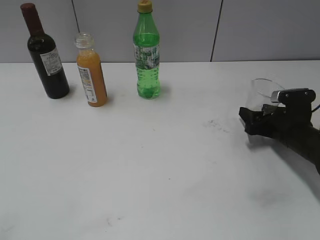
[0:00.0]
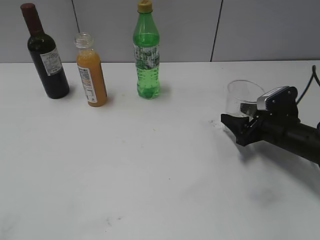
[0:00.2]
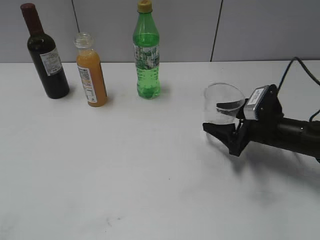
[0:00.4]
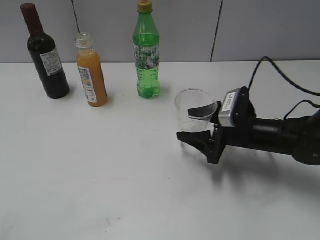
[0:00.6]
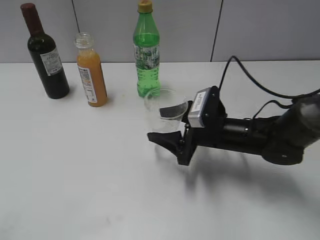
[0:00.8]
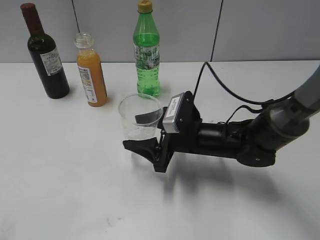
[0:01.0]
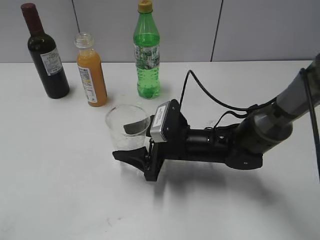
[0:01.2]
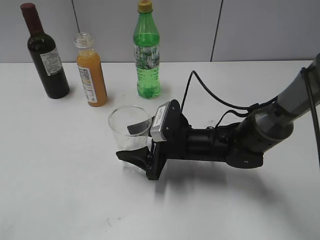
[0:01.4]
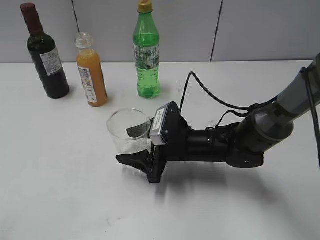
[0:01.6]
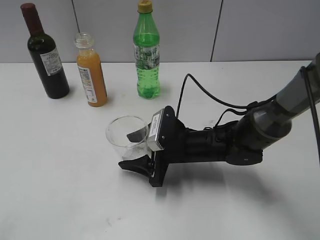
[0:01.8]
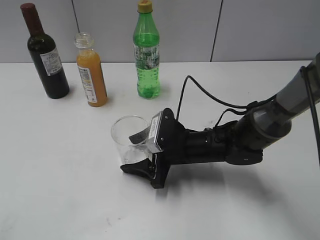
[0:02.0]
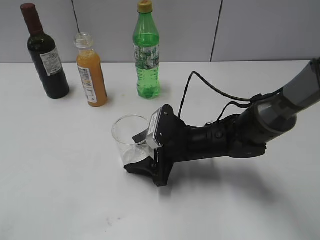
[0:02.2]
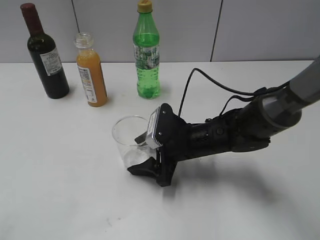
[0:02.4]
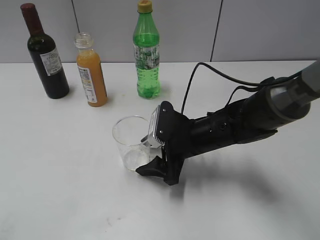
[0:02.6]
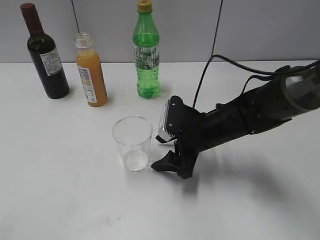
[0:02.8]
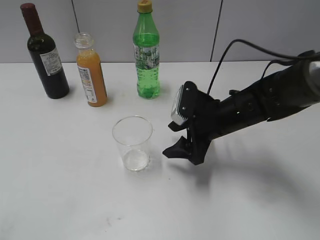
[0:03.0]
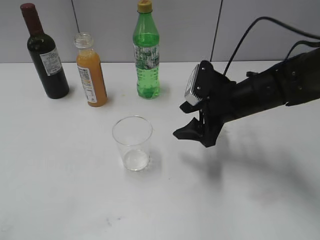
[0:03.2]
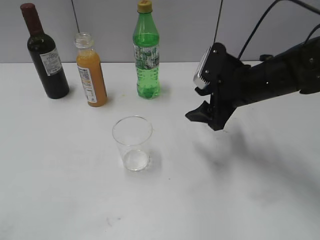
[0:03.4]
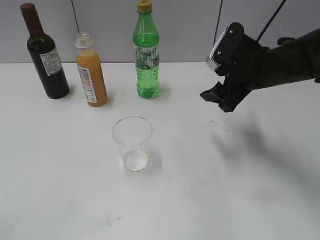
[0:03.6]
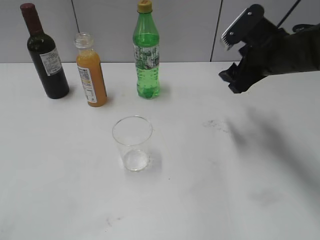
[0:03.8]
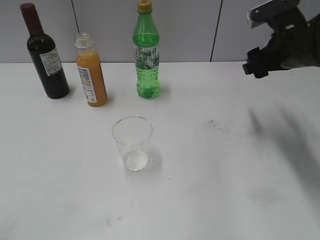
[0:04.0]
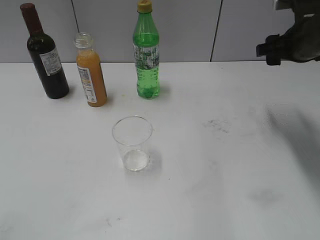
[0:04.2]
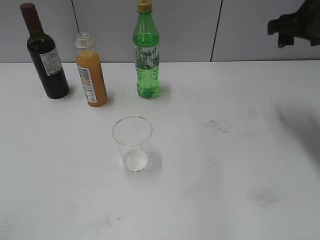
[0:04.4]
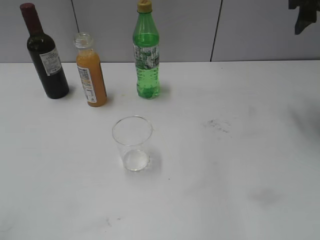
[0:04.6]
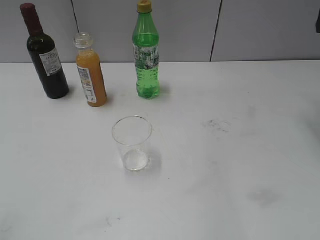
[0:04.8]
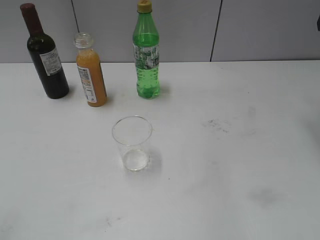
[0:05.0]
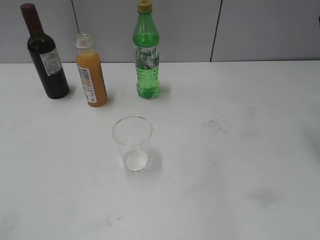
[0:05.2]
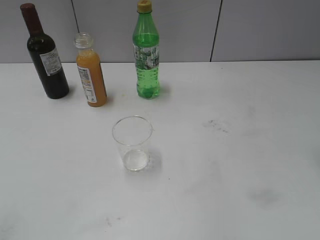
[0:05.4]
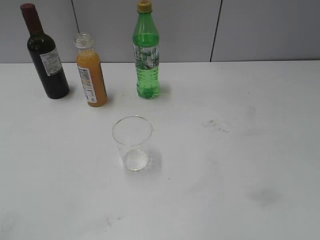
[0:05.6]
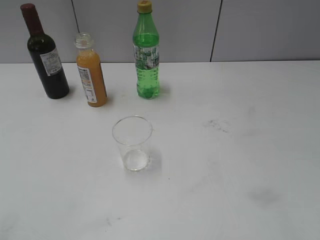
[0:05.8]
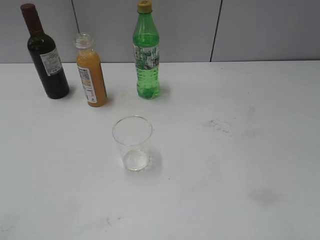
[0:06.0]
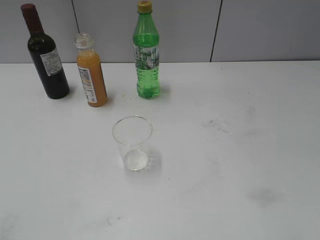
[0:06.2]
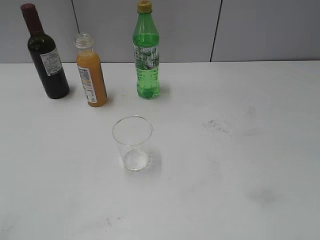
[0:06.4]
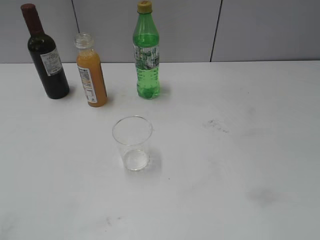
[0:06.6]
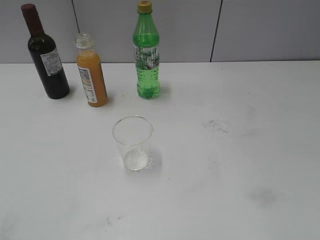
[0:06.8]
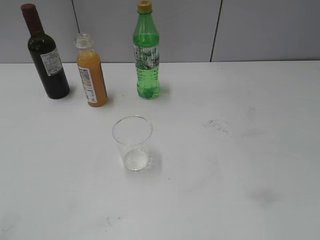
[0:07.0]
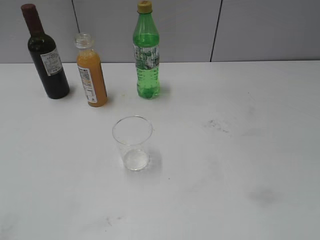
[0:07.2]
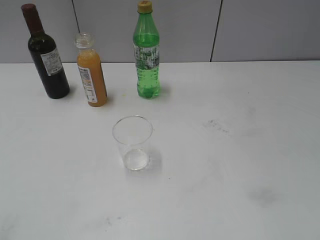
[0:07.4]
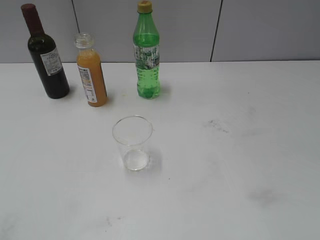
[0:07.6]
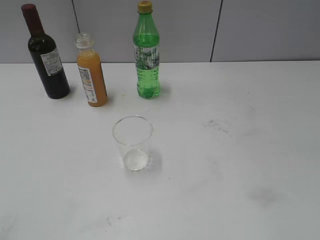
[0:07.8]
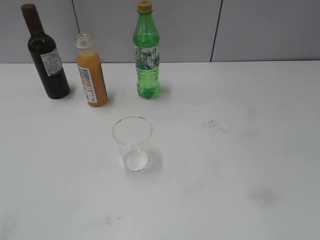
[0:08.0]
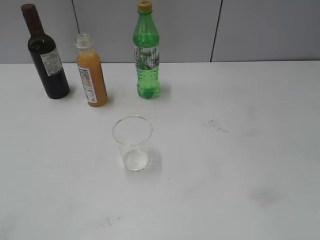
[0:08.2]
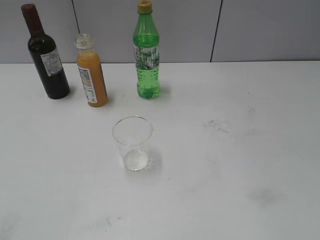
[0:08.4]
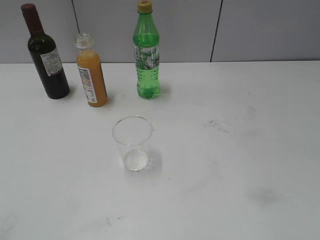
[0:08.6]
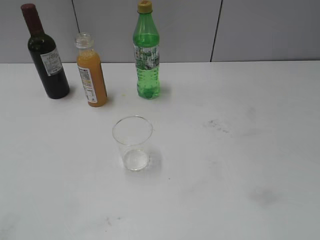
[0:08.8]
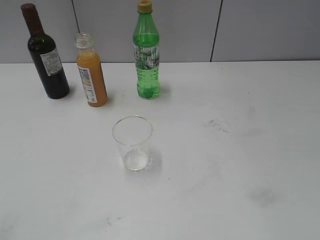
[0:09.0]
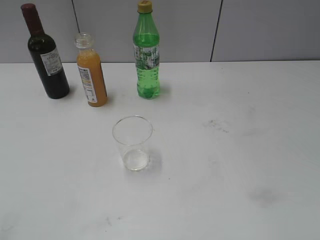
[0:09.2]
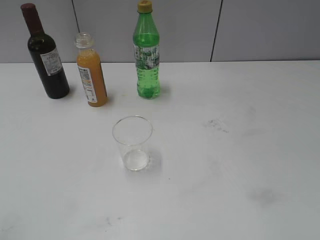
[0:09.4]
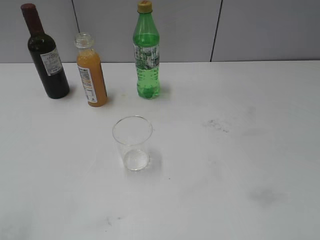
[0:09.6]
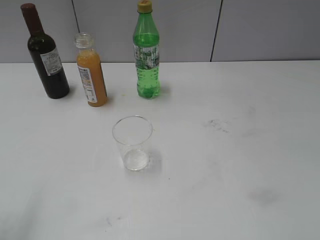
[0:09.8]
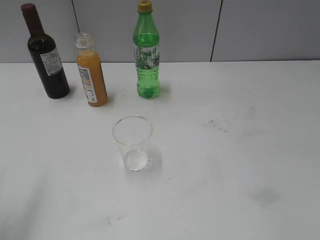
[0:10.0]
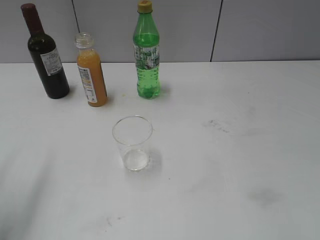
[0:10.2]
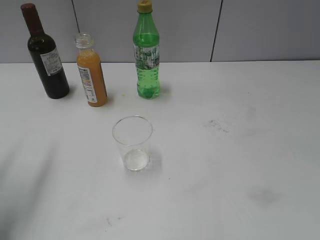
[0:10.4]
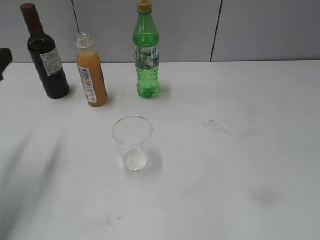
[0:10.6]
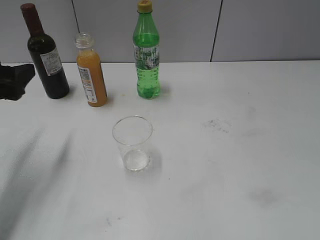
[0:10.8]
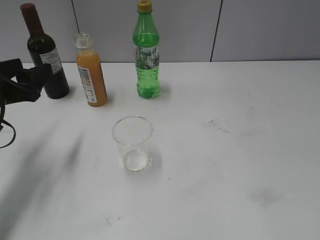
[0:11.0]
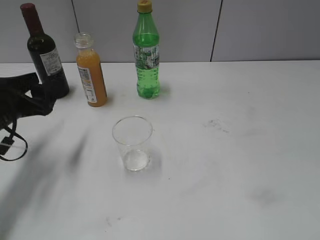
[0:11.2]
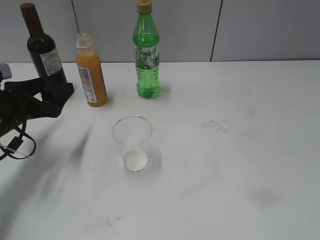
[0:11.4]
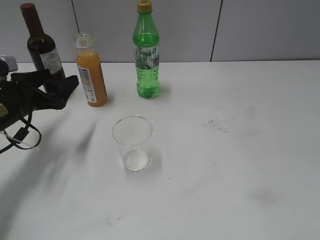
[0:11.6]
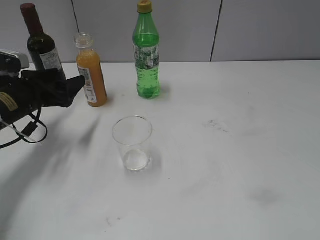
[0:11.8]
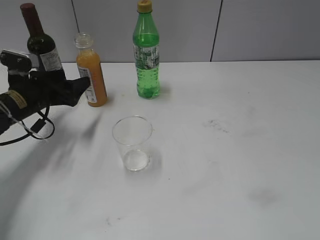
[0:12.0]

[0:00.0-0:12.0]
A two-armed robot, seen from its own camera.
Step, 0:00.0 to 0:02.8: Place the transparent cup on the table with right gripper.
0:00.0 to 0:01.6: The right gripper heads to the left, covering approximately 20 cm.
0:01.6 to 0:03.0: The right gripper travels to the right by about 5 cm.
0:03.0 to 0:04.4: The right gripper goes roughly 25 cm upward, to the right and forward, and closes up.
0:04.4 to 0:06.0: The right gripper shifts roughly 25 cm backward.
0:07.6 to 0:09.0: Neither gripper changes place.
0:09.0 to 0:10.4: The left gripper moves forward, roughly 20 cm.
0:10.4 to 0:12.0: The left gripper travels downward and forward by roughly 20 cm, and opens.

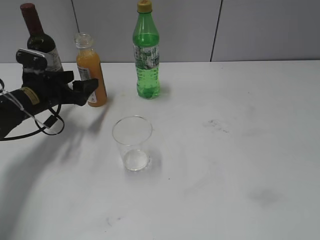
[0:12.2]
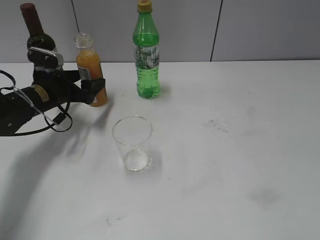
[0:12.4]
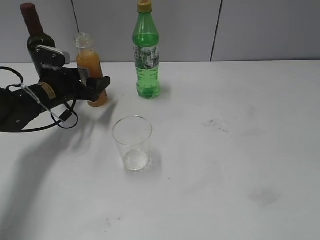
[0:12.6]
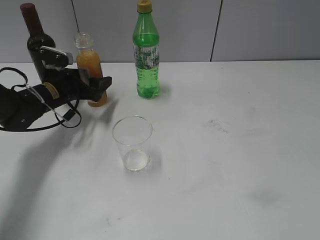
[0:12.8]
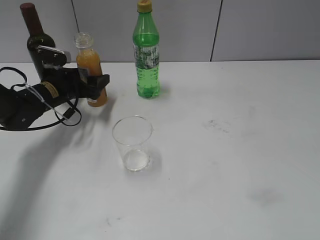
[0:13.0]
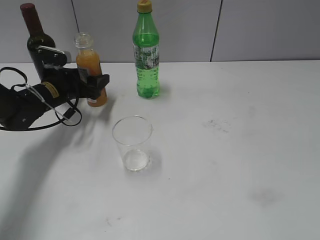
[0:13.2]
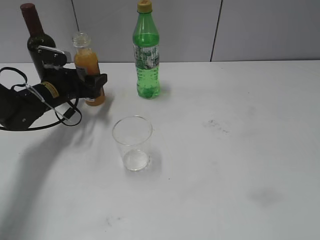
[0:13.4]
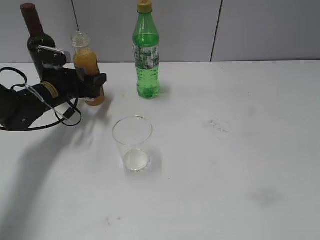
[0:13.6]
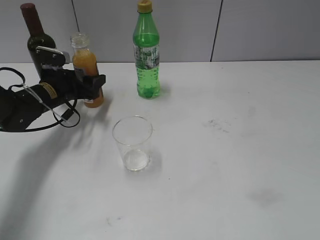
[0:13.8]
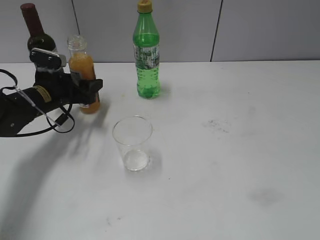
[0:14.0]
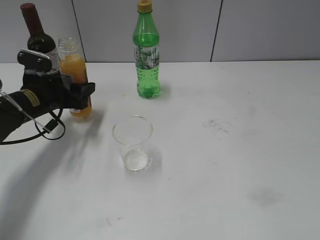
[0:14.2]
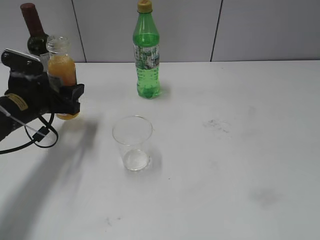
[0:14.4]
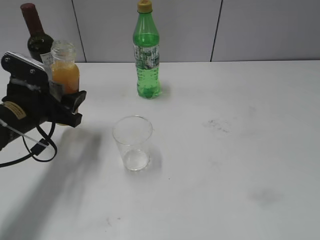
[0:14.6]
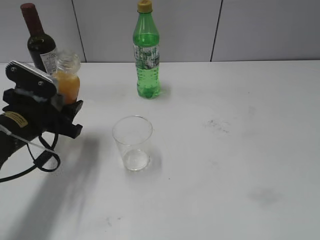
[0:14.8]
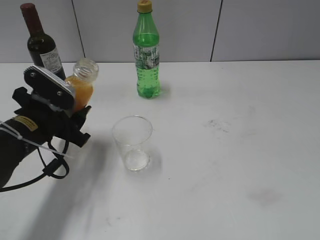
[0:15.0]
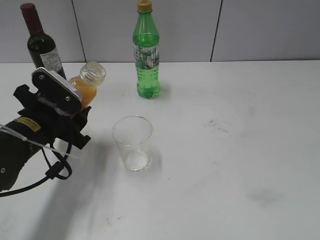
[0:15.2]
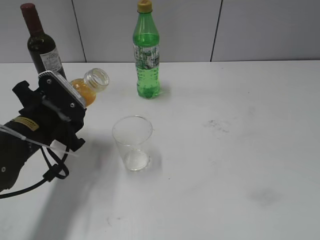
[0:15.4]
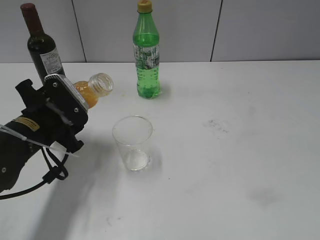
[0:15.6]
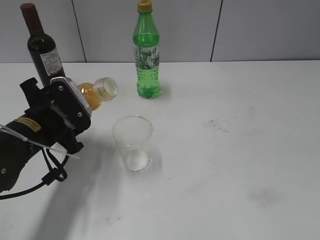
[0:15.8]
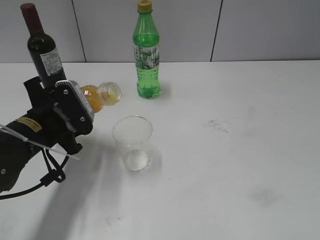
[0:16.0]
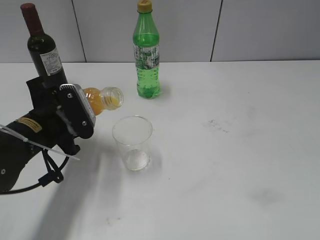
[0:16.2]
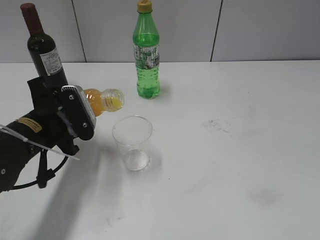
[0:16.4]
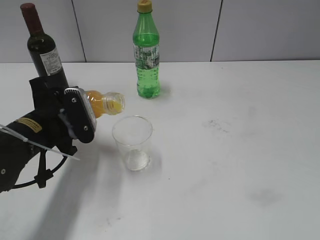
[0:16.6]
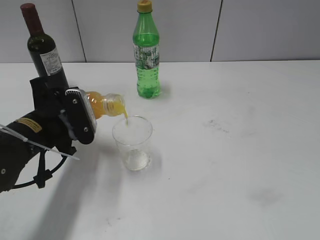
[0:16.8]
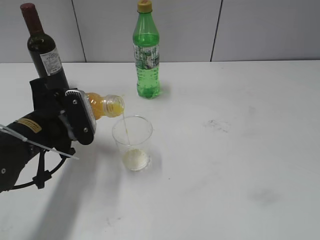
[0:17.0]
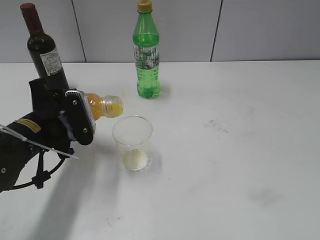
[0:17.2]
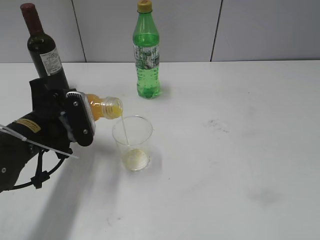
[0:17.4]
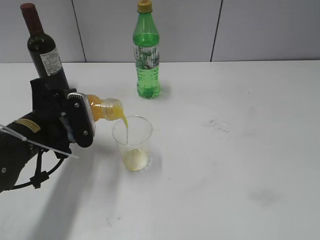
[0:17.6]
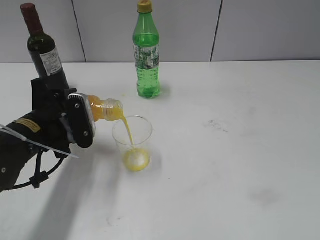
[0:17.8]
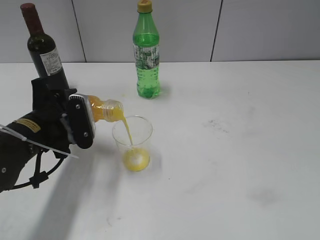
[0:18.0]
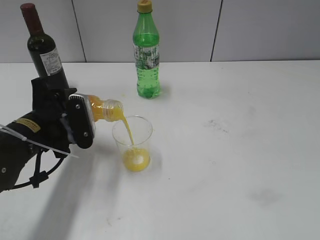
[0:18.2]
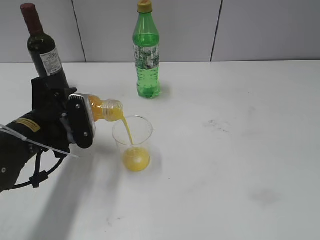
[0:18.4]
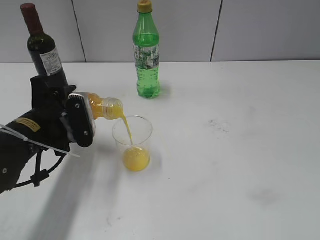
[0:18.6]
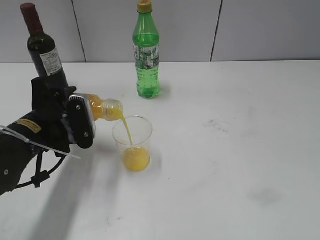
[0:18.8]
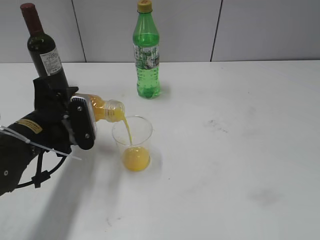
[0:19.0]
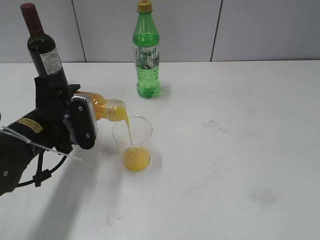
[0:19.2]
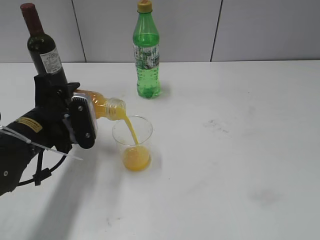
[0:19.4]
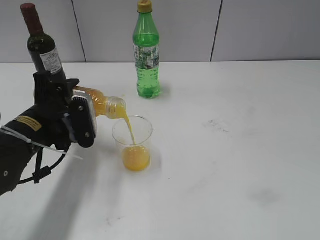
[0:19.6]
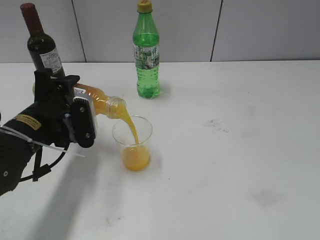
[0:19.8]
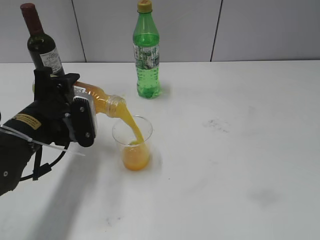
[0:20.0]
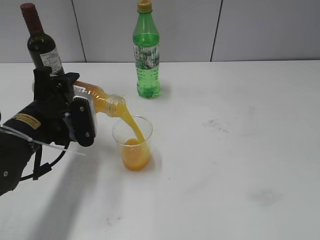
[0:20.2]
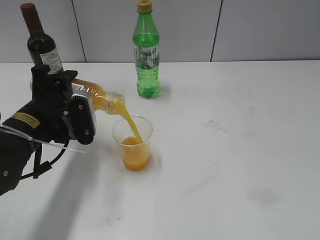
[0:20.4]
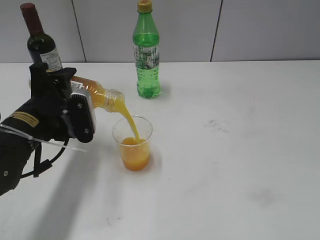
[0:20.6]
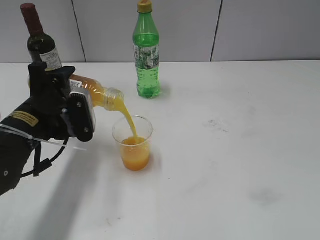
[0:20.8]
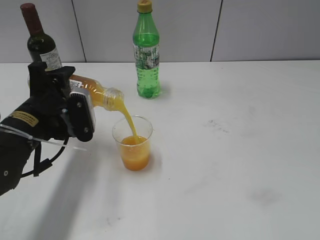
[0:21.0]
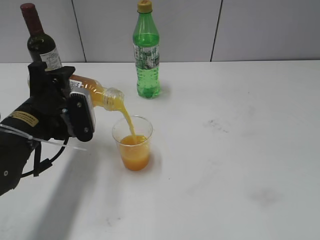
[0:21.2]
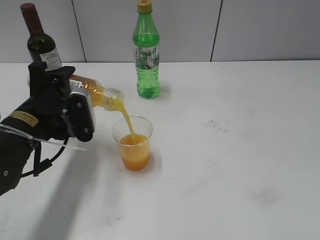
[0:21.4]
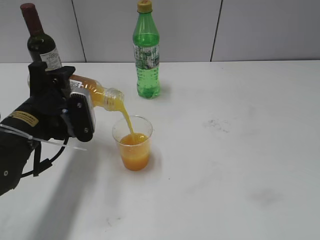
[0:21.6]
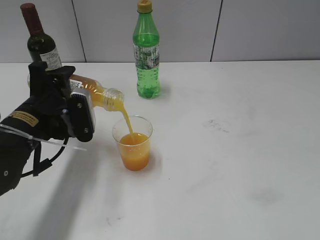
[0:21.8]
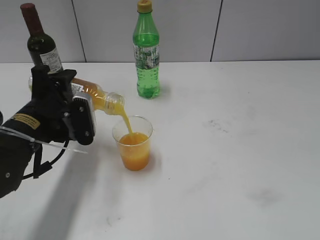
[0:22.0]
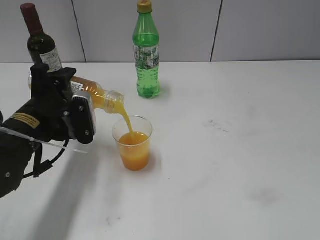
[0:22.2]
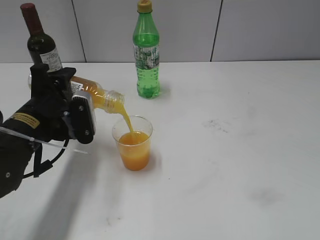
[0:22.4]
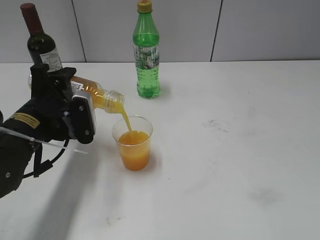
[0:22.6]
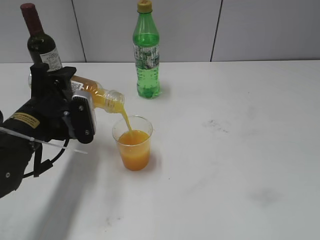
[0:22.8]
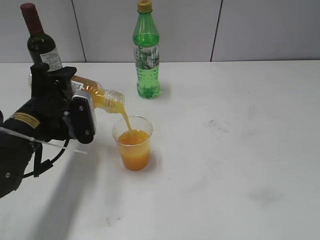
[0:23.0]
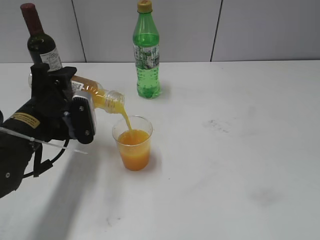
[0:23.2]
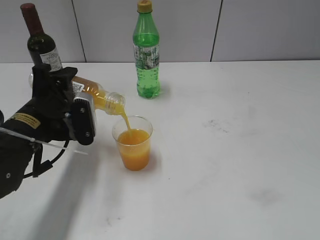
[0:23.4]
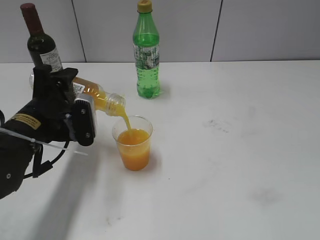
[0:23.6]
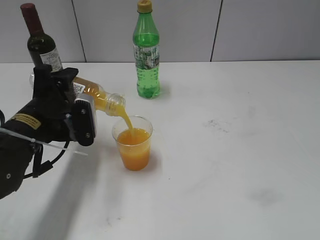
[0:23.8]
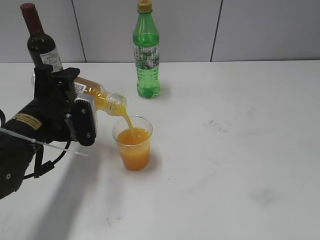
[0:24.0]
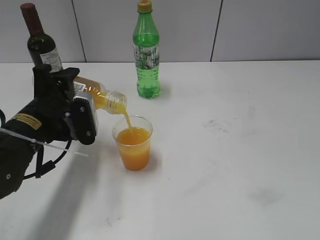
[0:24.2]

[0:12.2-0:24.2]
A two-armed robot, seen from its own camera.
0:12.2 to 0:13.8: The left gripper closes.
0:13.8 to 0:15.2: The left gripper is displaced backward by some 15 cm.
0:16.6 to 0:21.2: The grippers move only a little.
0:21.2 to 0:24.2: Neither gripper changes place.
